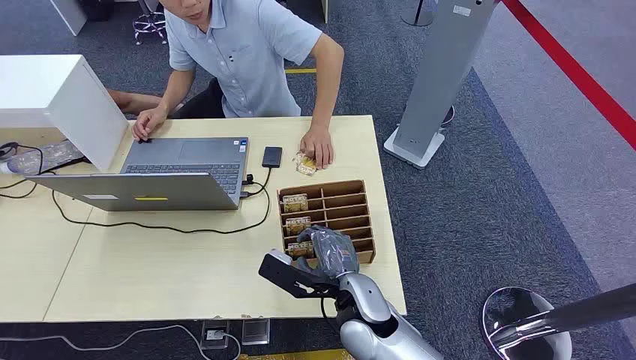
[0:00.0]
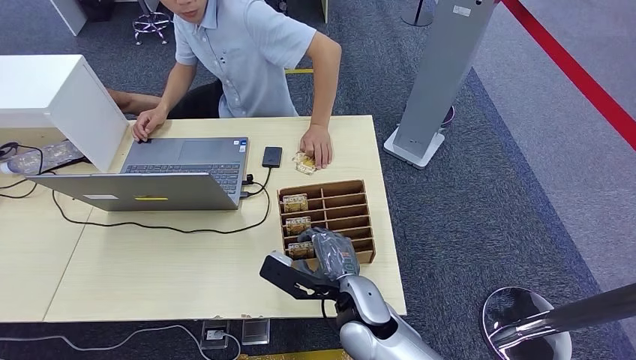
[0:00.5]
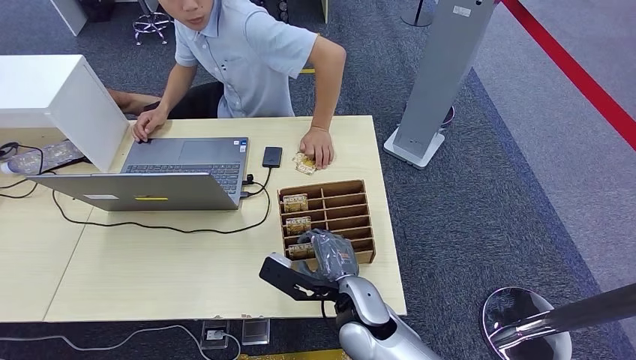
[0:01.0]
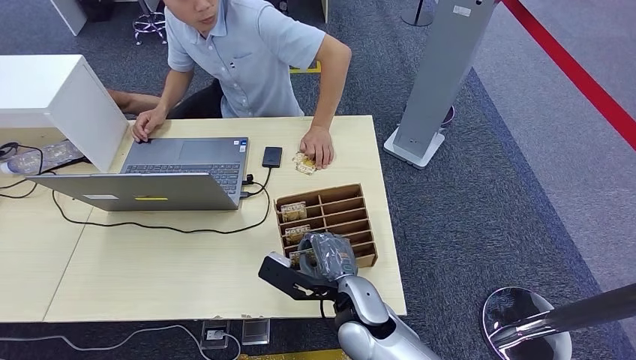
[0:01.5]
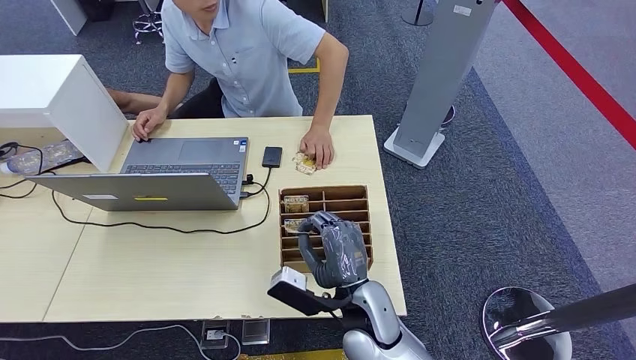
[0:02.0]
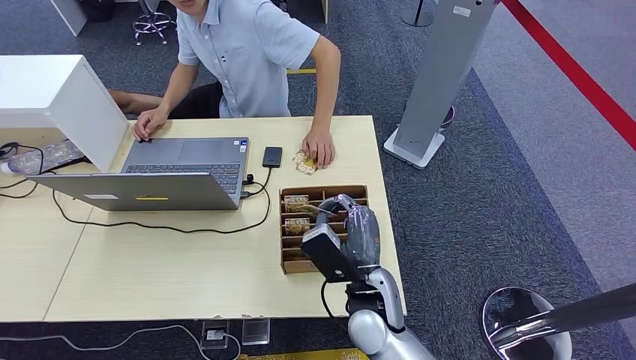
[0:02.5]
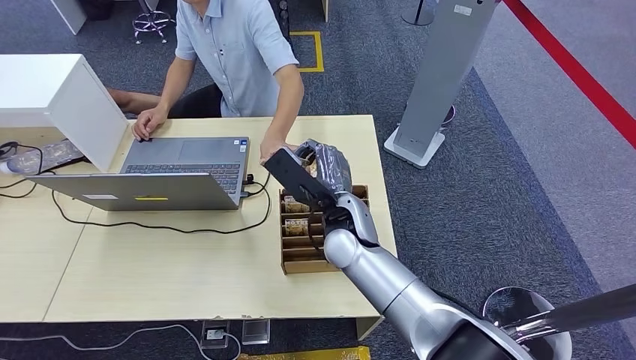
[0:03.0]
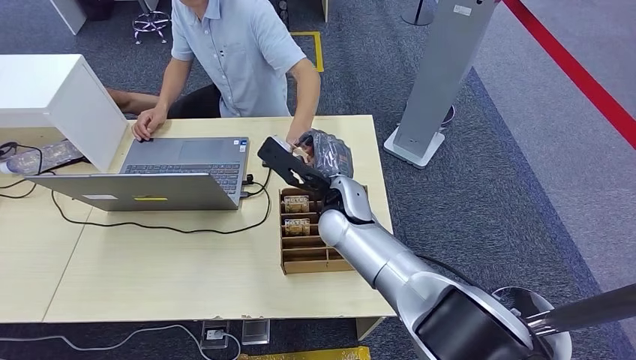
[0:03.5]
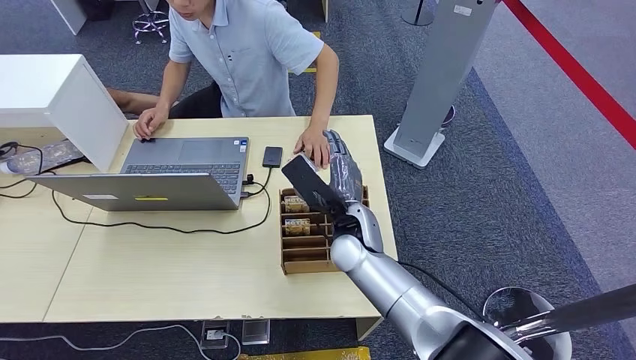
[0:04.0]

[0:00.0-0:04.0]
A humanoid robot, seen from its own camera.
Step, 0:00.0 to 0:02.0: Pick up the room card from the card holder.
Step, 0:03.0 to 0:04.0: Hand the room card to the target.
0:02.0 to 0:04.0: The right hand goes roughly 5 cm forward.

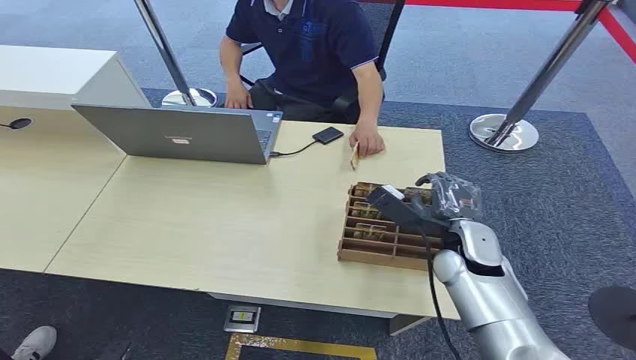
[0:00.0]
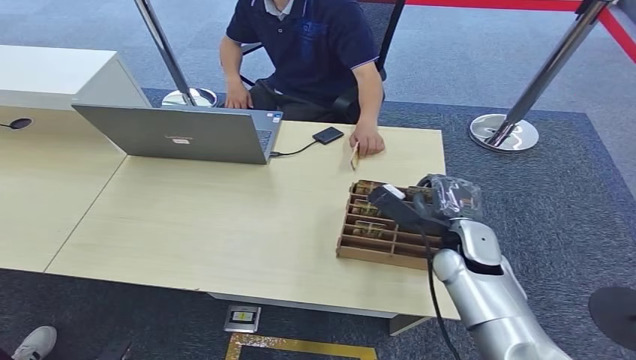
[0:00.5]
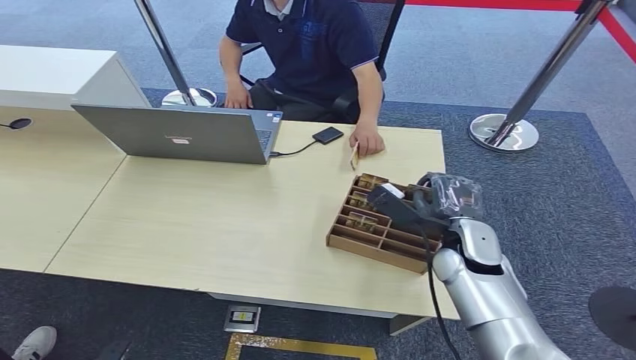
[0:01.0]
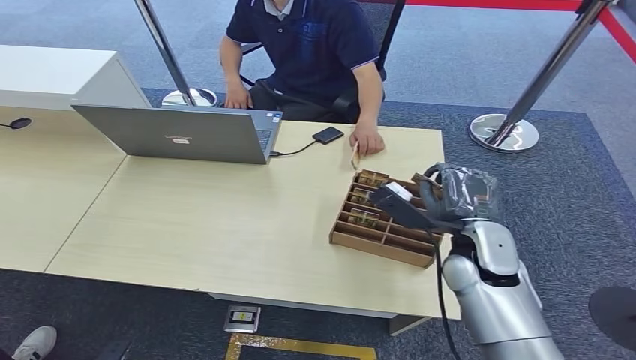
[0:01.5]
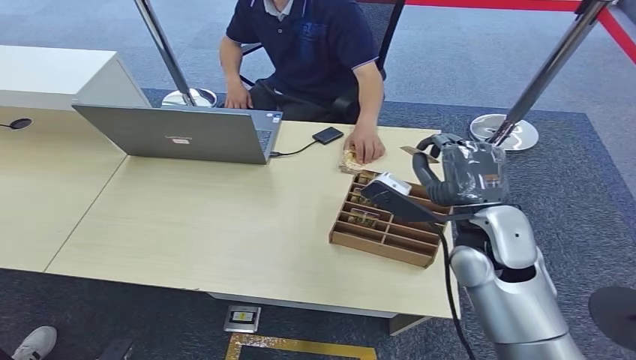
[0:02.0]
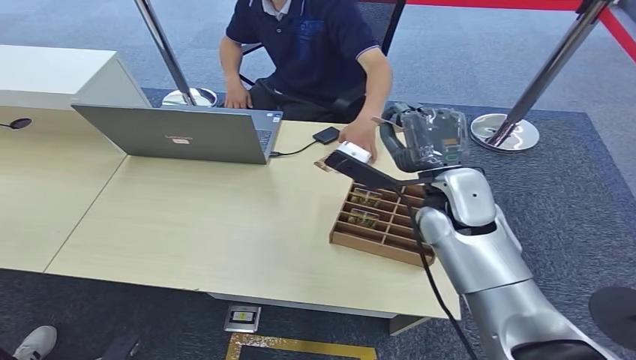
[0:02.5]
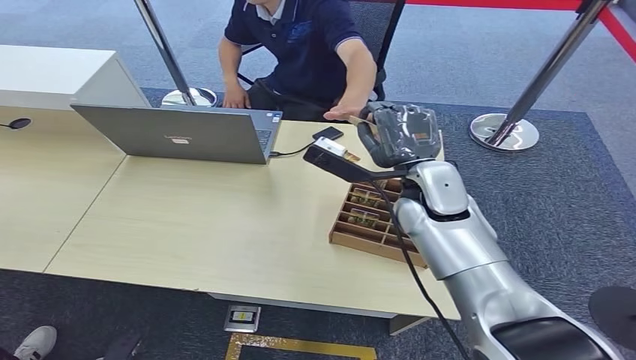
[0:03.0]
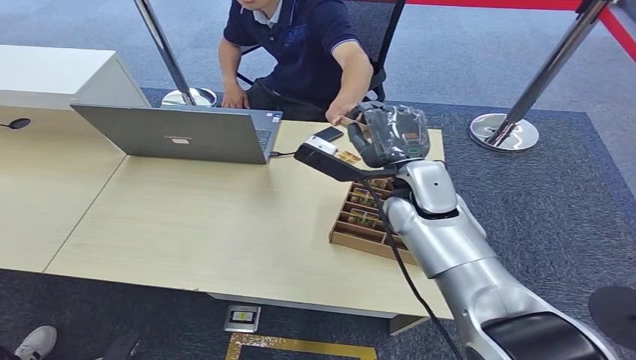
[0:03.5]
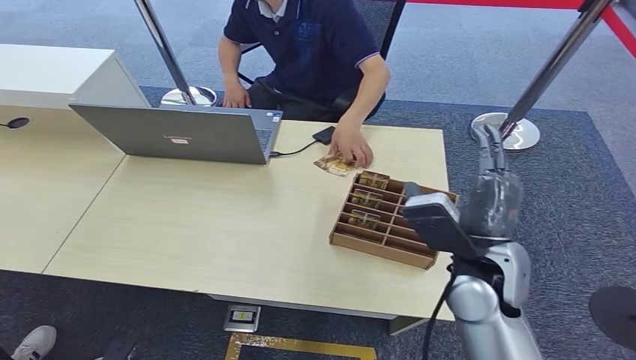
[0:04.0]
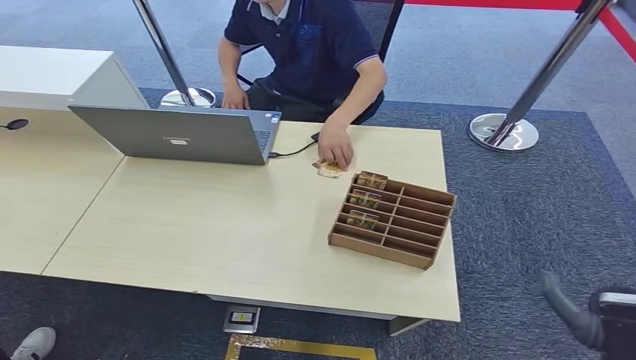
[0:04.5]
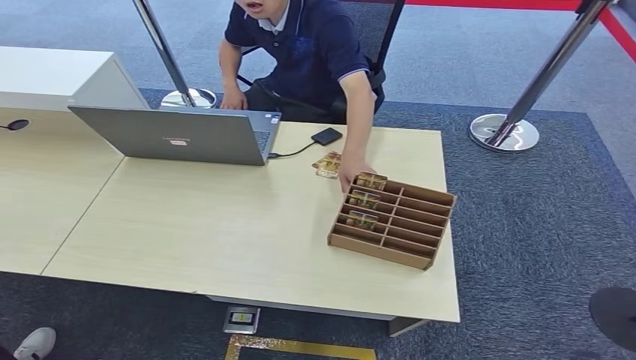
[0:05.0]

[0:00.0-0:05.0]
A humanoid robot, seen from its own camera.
Step, 0:00.0 to 0:02.0: Pick up the room card from the card holder.
Step, 0:02.5 to 0:05.0: Hand the room card to the target.
0:02.5 to 0:05.0: The right hand goes roughly 50 cm backward, downward and to the right.
